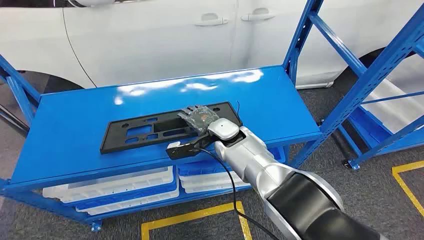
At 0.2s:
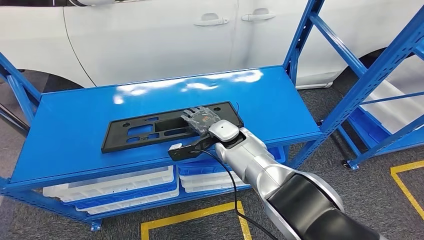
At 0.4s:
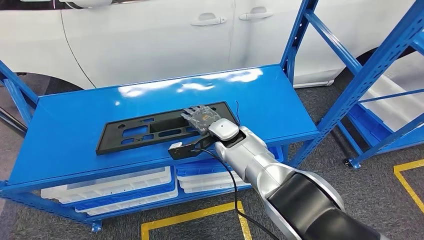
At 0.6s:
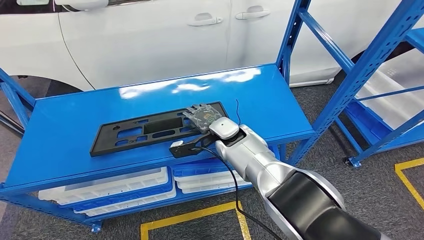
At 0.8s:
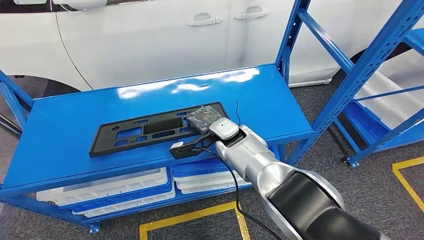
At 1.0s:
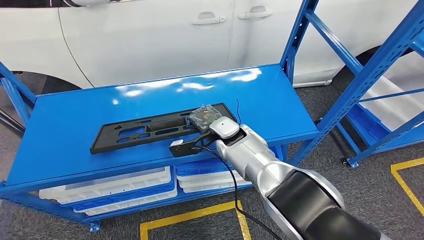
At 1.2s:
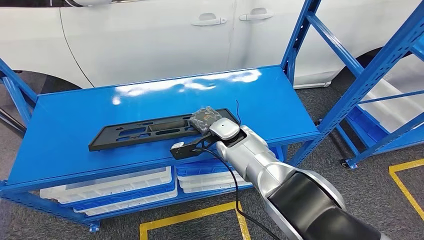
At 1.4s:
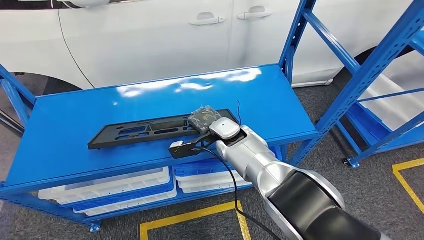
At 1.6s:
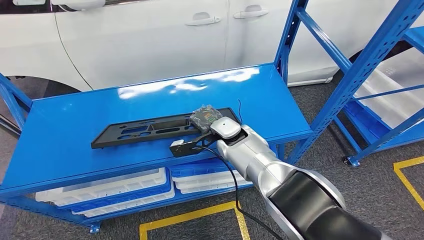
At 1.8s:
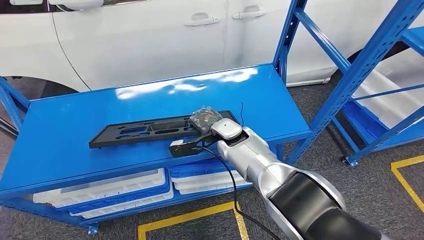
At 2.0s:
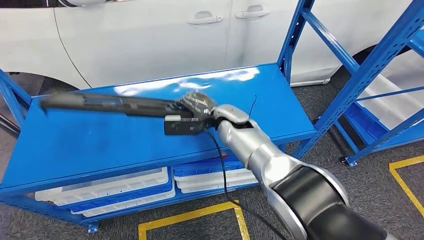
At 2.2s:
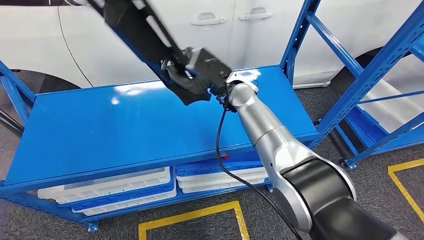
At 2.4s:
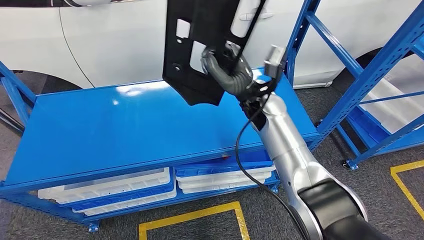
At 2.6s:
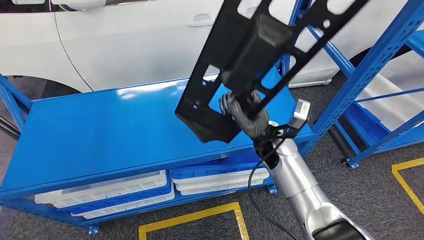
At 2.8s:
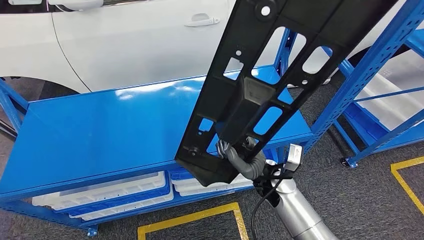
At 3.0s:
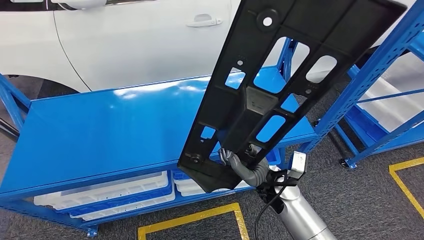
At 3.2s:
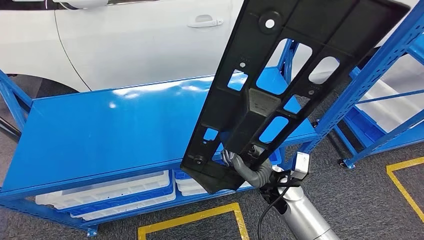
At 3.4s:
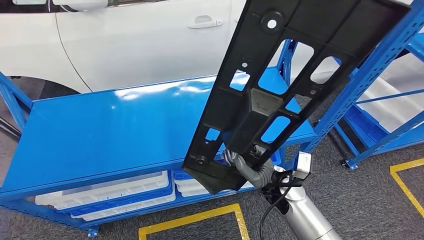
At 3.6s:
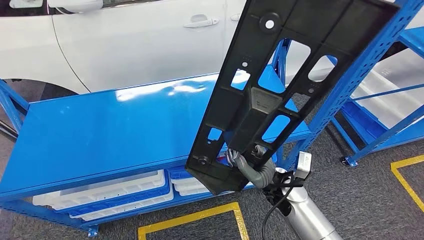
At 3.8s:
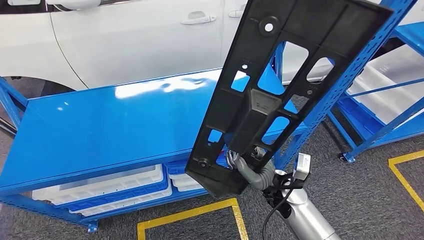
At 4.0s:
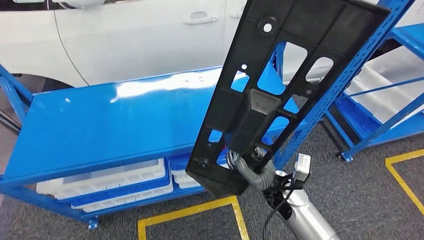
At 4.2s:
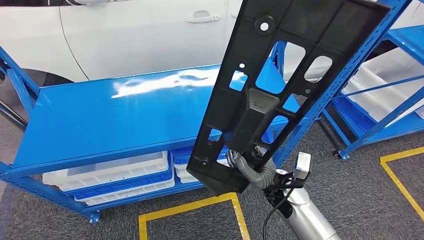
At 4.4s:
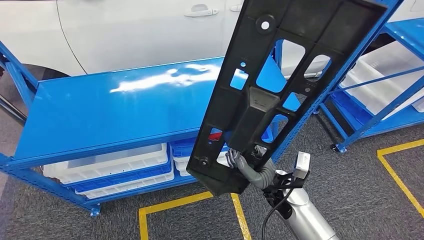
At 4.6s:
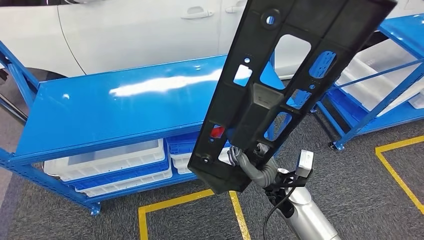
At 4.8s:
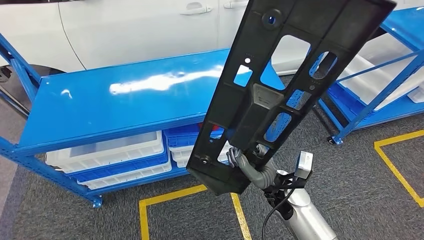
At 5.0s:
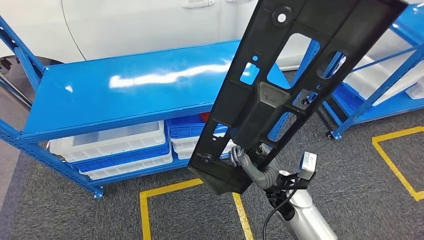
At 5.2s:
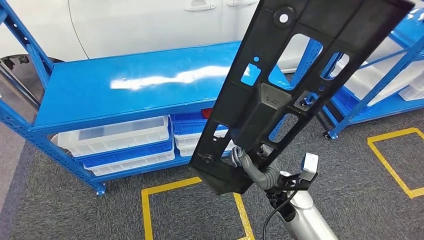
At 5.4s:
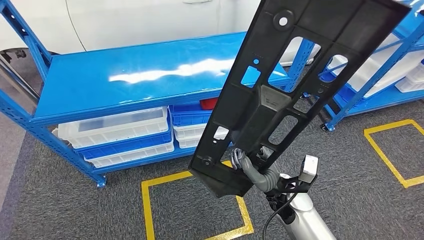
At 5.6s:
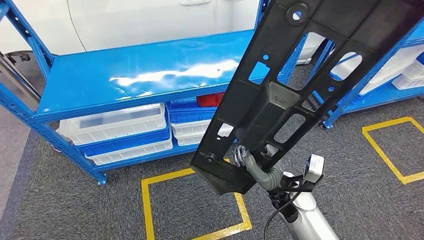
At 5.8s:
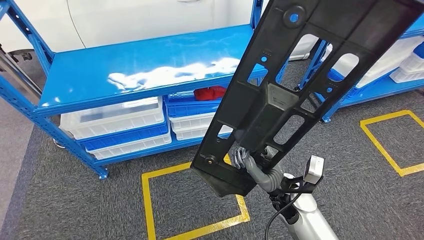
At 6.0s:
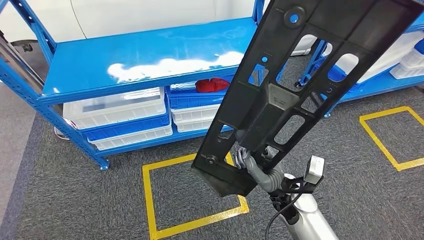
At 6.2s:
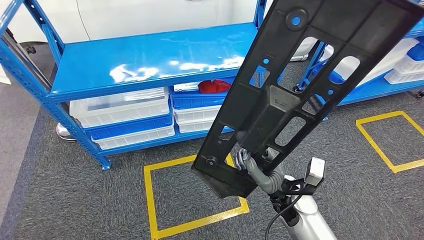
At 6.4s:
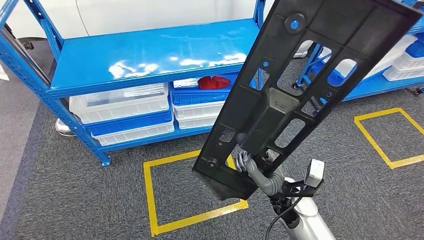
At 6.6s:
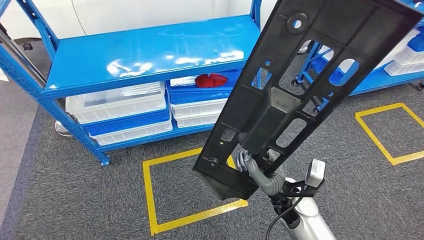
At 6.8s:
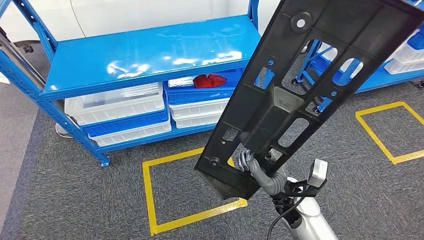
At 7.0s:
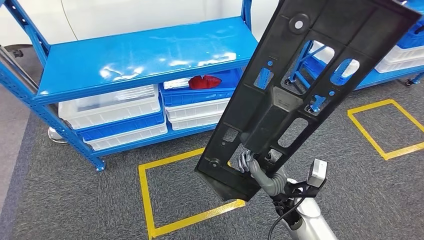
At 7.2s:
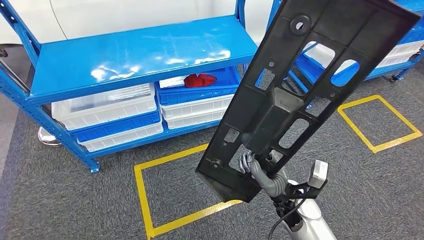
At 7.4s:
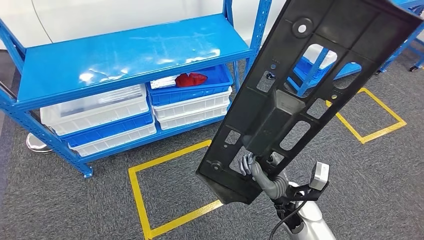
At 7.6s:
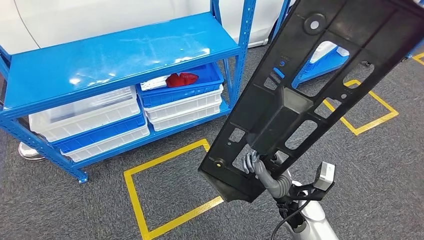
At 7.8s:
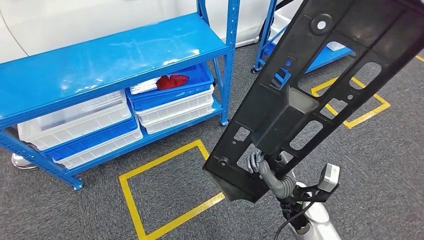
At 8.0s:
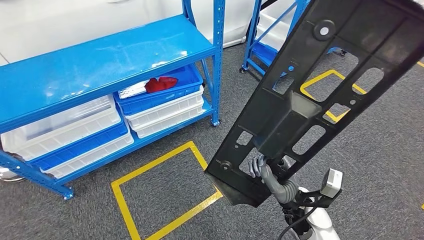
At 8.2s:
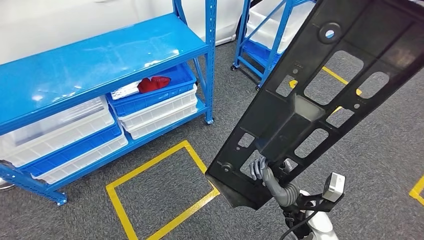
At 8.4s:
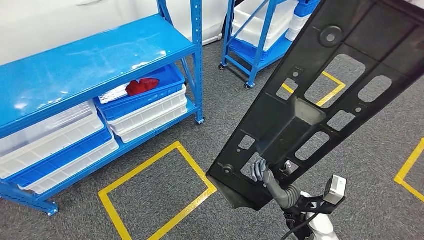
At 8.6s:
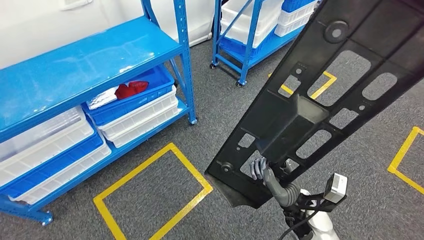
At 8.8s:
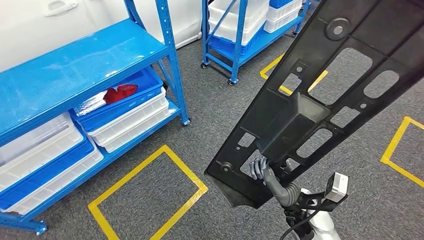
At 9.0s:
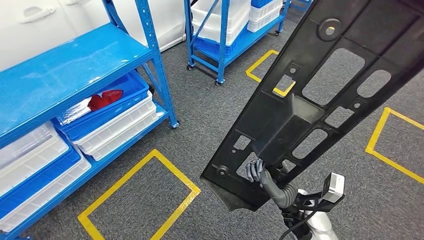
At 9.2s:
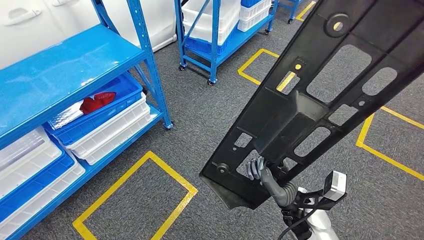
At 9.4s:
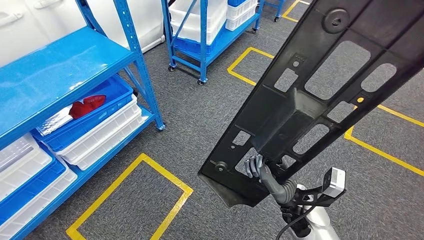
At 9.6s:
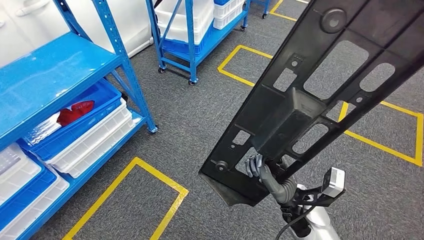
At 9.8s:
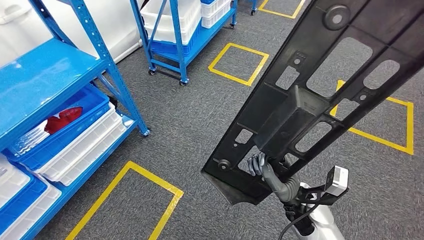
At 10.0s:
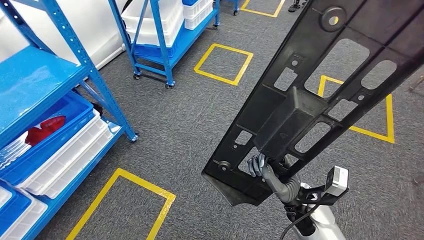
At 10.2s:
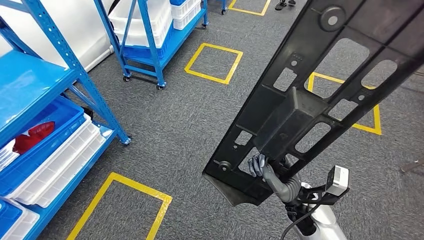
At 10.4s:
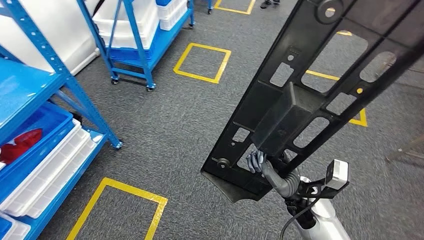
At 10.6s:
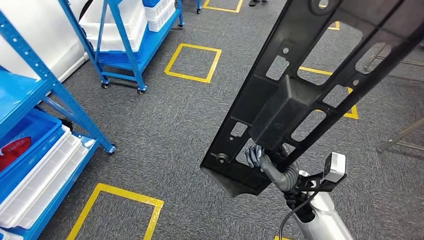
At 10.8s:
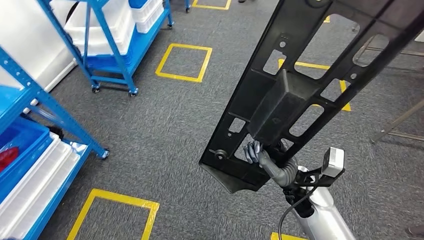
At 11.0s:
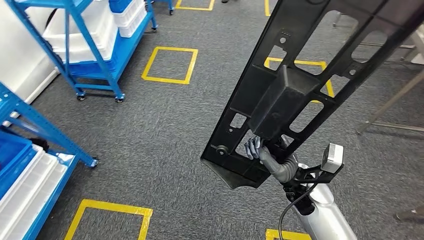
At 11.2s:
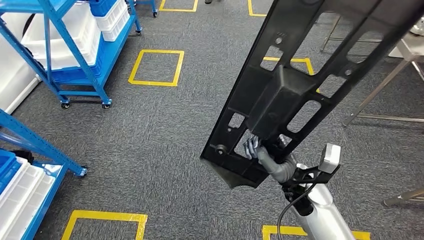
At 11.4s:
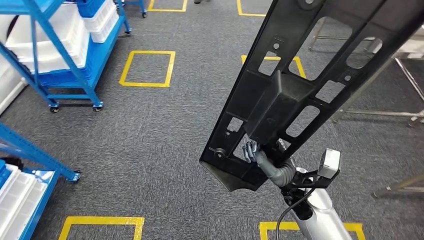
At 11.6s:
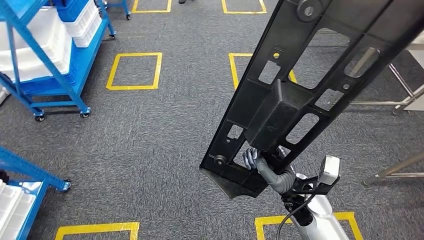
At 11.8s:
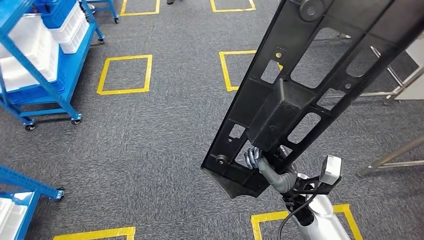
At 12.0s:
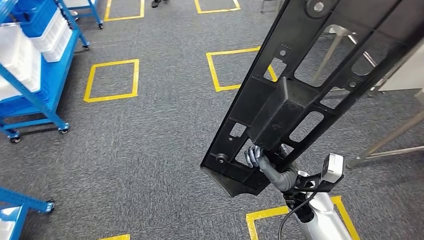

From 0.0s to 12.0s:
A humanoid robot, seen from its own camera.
Step, from 0.0s to 5.0s: Pick up the large material from the shelf.

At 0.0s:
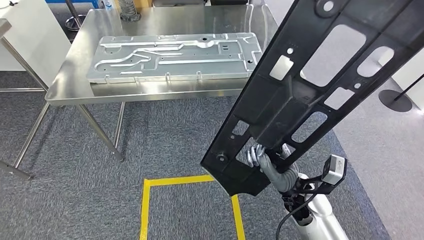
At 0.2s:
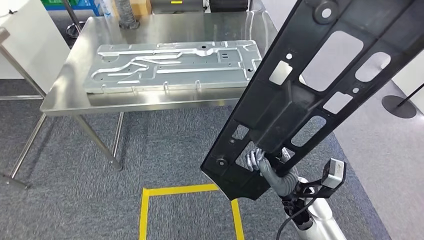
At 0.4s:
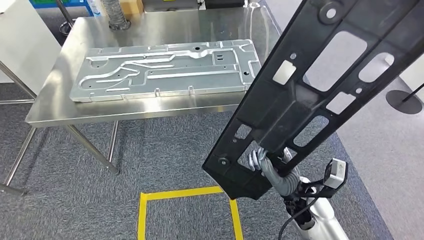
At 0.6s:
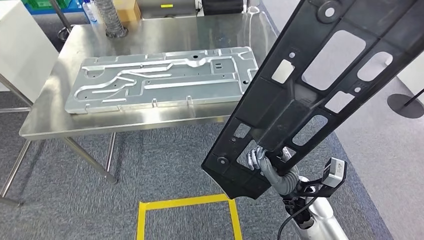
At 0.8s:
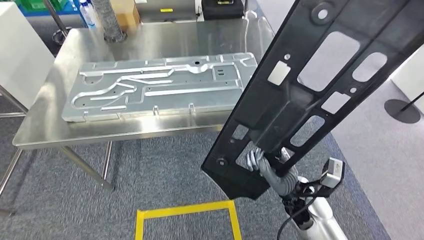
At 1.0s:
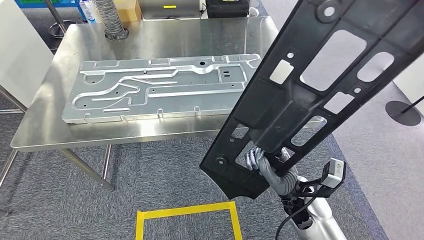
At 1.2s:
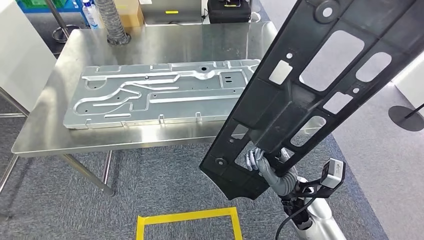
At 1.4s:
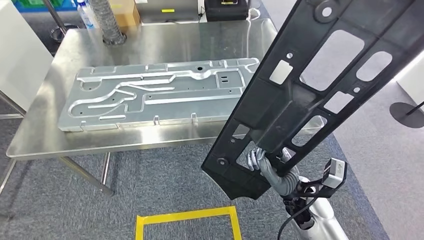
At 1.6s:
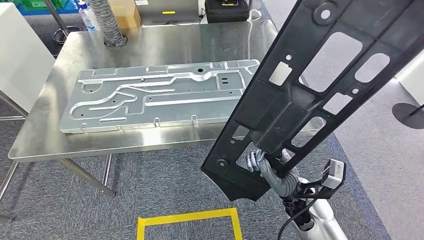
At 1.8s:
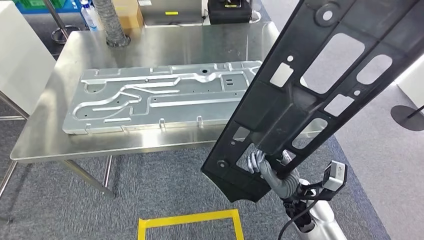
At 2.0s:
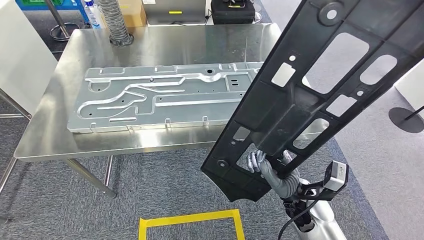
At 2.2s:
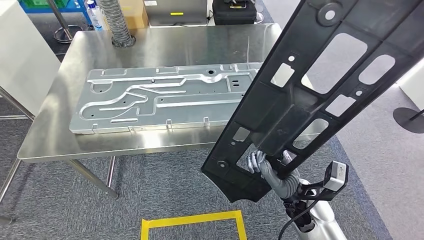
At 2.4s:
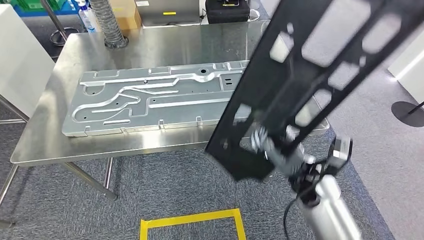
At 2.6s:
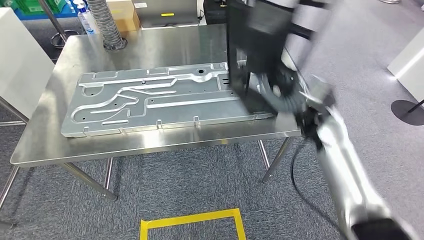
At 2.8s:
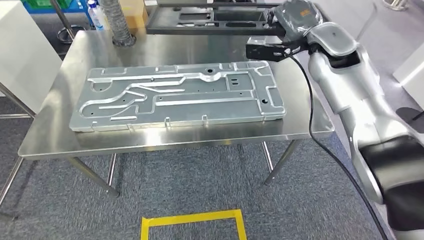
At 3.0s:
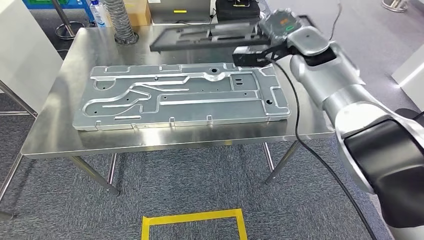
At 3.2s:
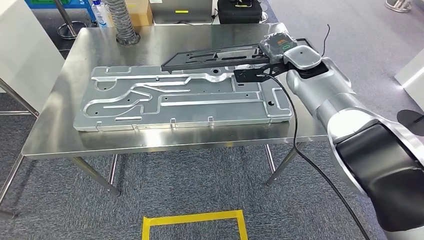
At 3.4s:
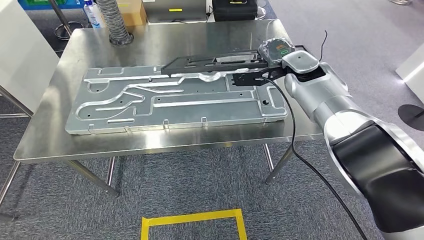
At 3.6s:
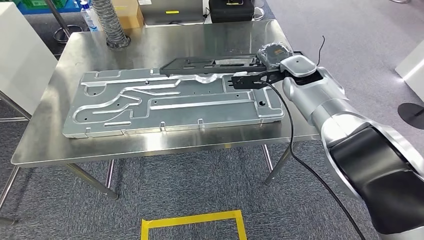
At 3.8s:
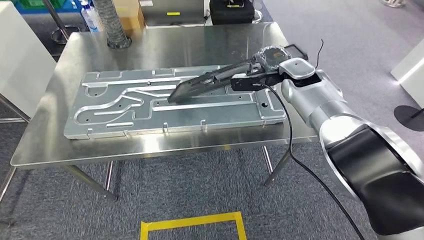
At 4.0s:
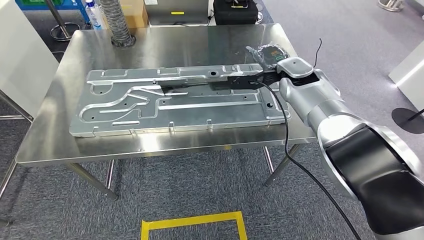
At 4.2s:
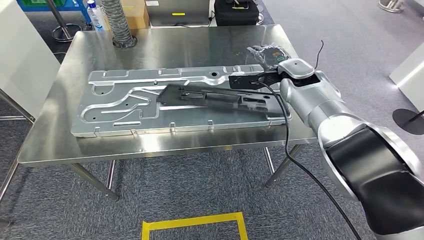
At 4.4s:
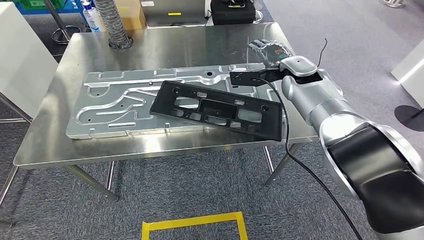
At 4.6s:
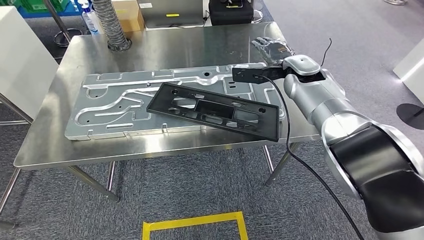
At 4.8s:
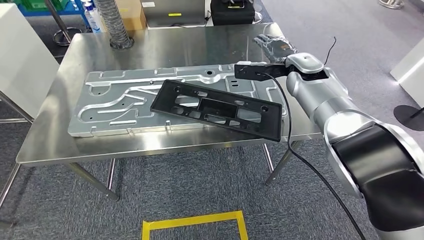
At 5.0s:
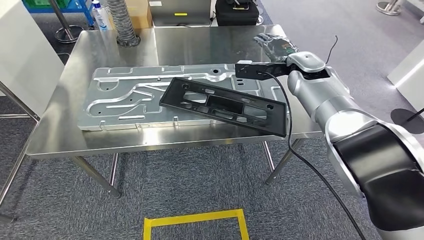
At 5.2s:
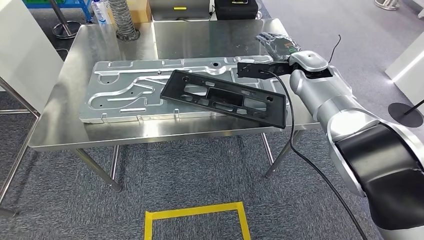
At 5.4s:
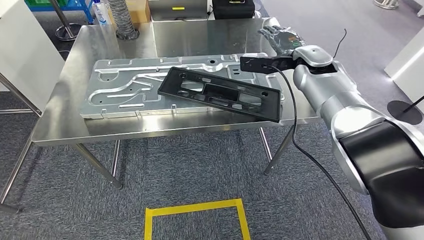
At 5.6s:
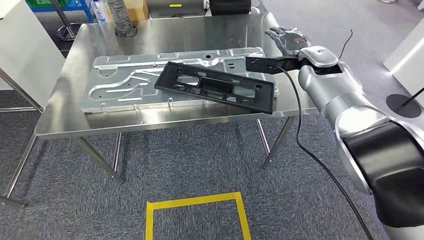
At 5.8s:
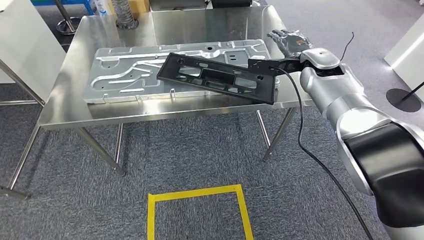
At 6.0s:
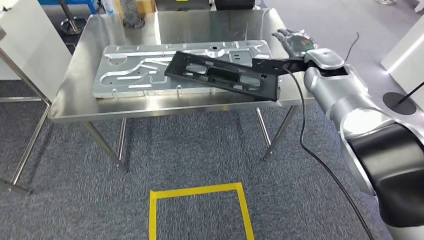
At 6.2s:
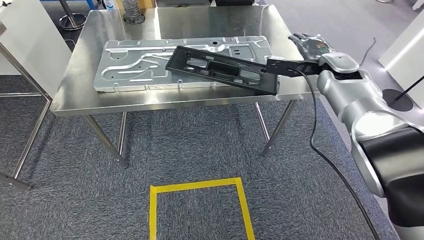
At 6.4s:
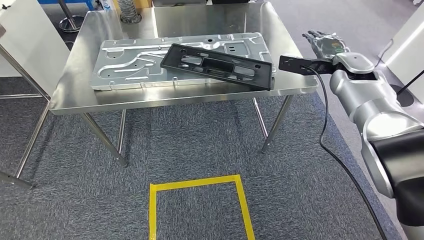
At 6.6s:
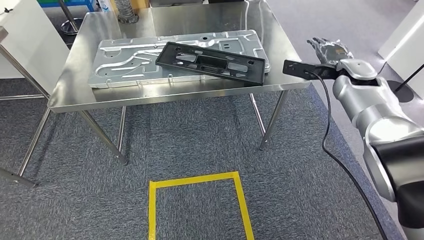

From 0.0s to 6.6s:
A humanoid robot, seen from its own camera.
Step, from 0.0s to 2.6s: Move the large material to the workbench.
Step, from 3.4s to 4.8s: Insert the large material into the corresponding slot on the workbench.
